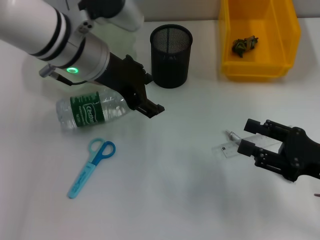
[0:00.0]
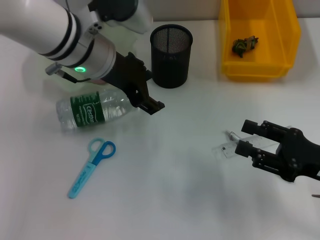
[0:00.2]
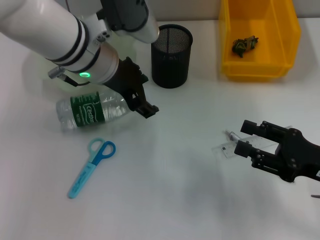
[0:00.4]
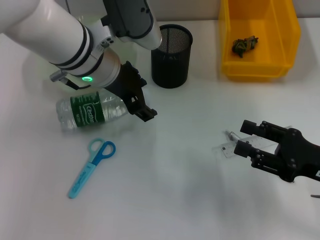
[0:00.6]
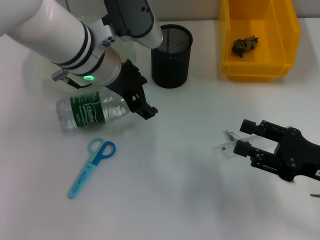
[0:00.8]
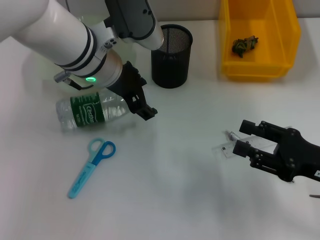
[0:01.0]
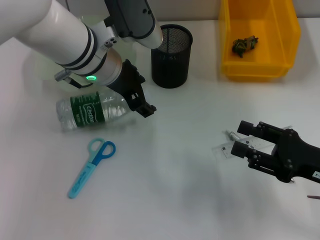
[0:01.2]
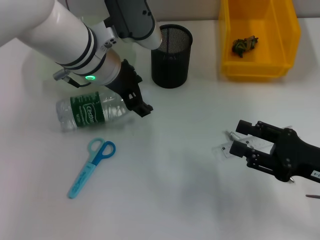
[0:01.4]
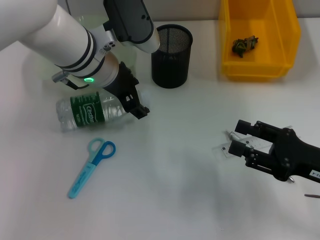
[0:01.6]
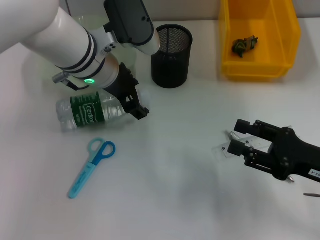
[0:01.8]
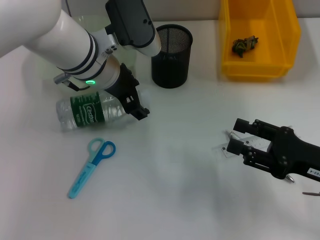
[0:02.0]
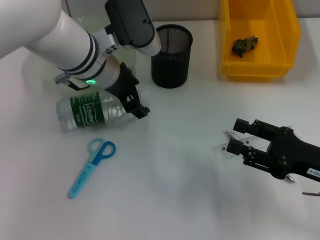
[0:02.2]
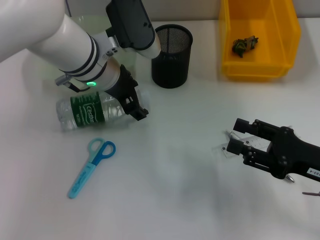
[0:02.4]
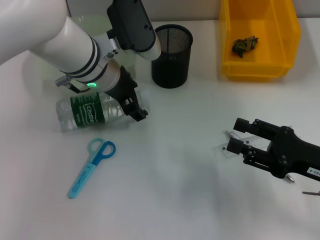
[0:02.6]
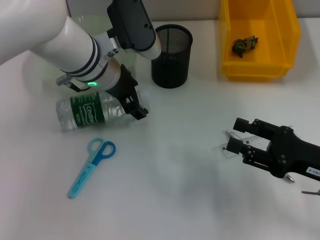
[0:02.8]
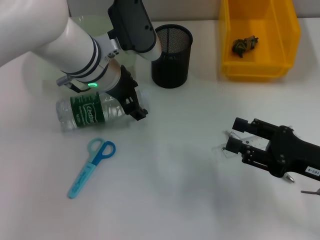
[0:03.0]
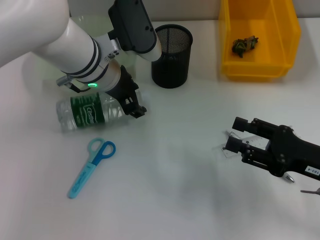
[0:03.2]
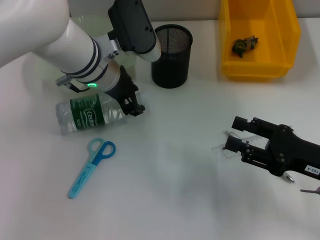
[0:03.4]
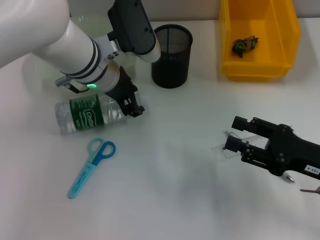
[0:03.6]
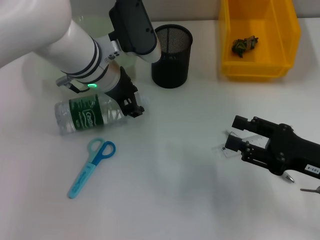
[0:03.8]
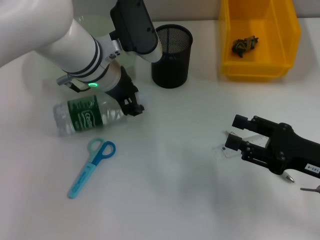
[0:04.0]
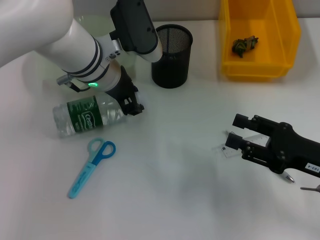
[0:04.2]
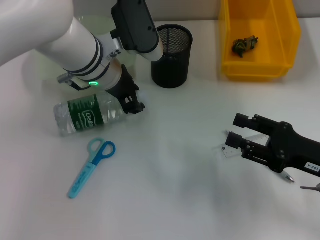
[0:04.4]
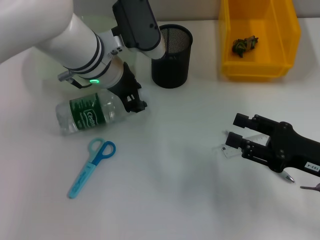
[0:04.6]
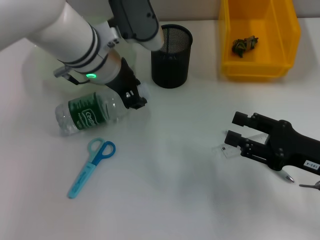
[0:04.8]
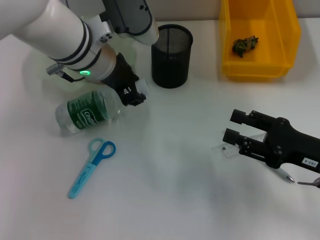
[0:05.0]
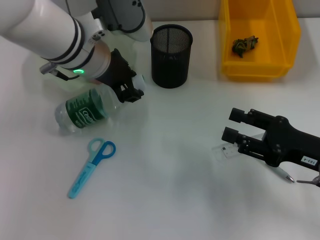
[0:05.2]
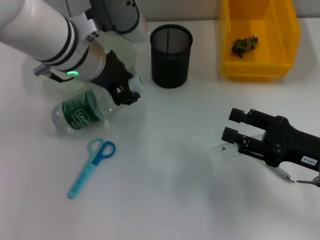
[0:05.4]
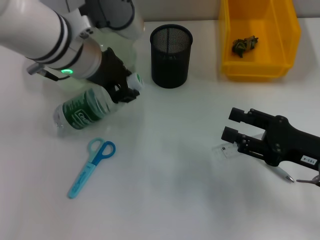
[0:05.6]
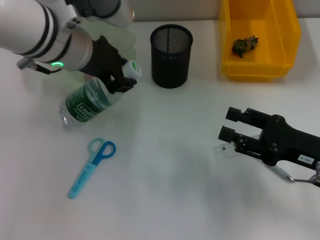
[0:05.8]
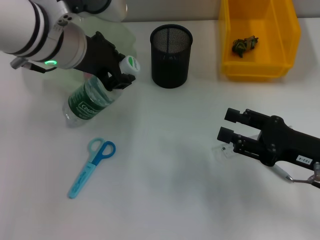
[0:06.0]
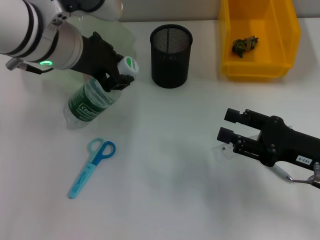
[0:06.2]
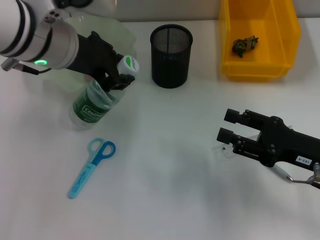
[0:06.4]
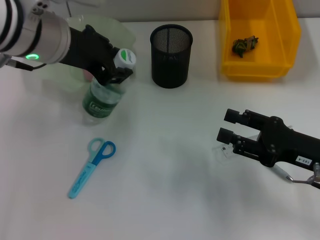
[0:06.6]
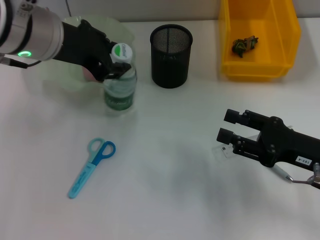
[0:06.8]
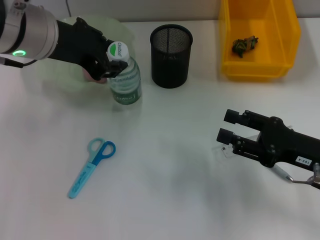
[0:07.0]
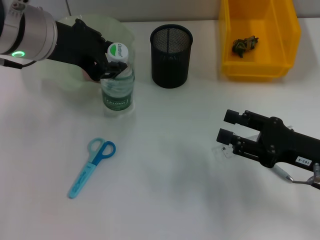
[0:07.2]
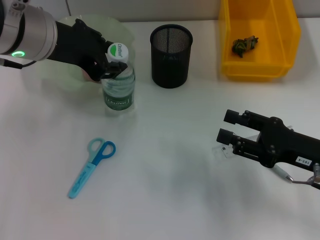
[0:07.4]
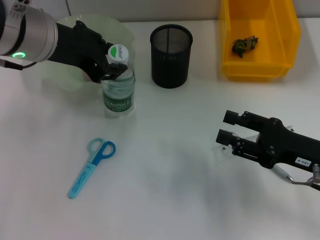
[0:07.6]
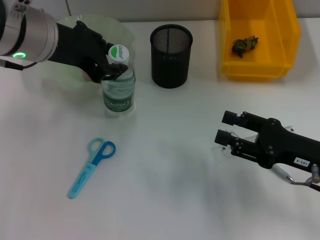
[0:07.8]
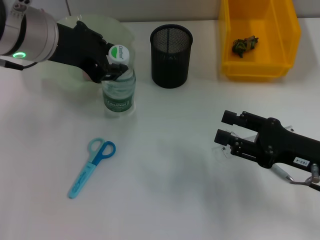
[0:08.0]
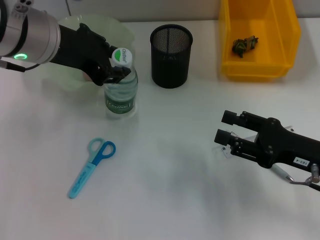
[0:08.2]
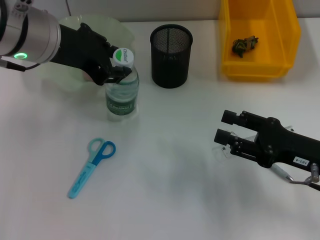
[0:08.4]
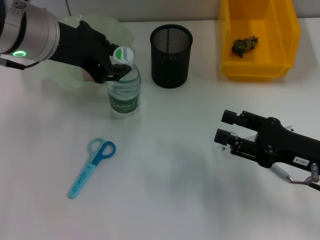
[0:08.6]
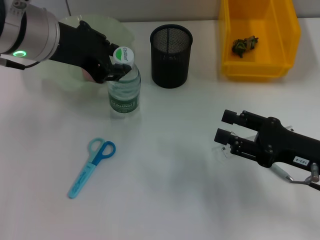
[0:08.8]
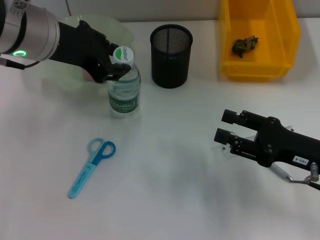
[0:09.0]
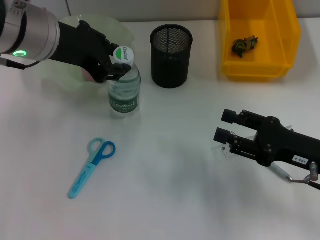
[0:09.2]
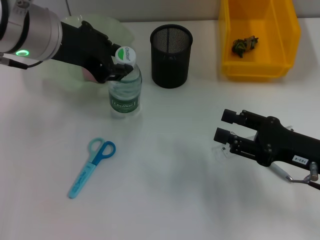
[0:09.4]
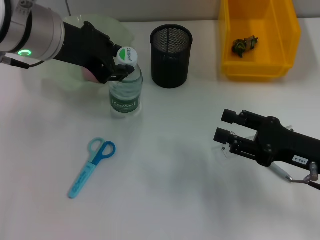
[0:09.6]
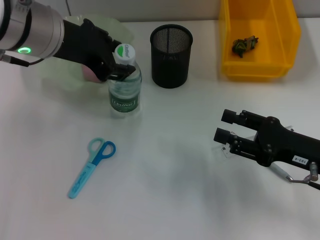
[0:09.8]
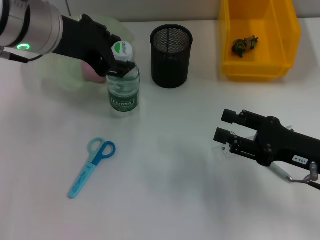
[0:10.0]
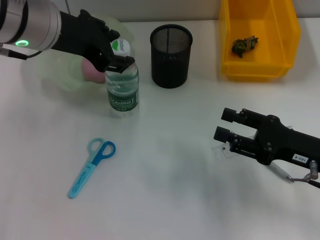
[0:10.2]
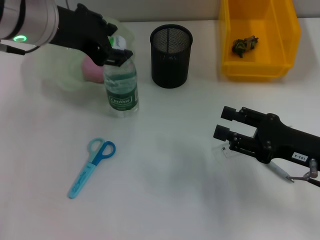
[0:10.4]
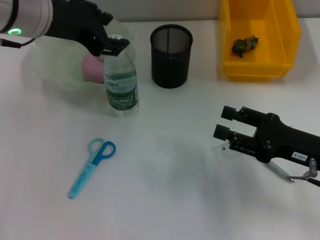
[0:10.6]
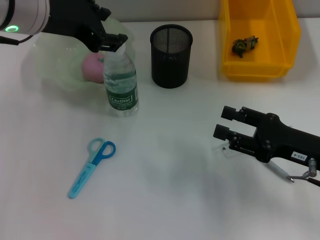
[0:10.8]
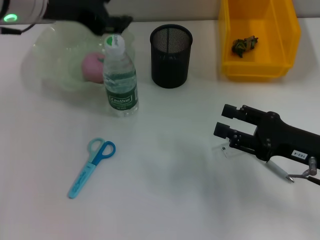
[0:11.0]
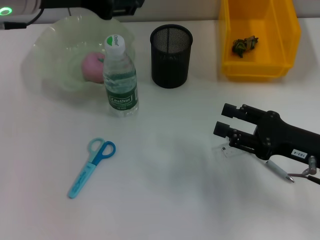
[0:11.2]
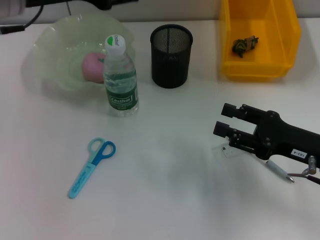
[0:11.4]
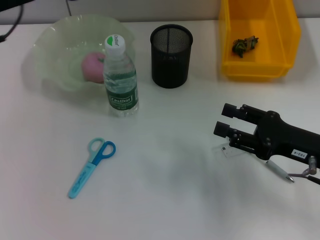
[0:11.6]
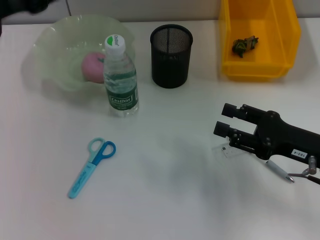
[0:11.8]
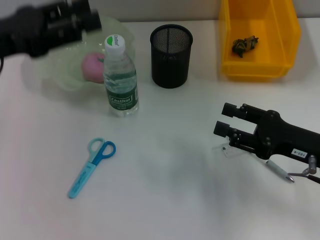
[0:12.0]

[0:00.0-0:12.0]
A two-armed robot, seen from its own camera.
Step, 0:00.0 to 0:03.8: Grab the water bottle with the left hand.
Step, 0:04.0 to 0:10.6: Place the water bottle on the table with the left hand.
0:00.0 to 0:03.0: The grippers make only small movements.
0:03.0 to 0:04.4: The left gripper closes up.
0:04.4 to 0:06.0: The left gripper is displaced upward by some 5 cm.
0:06.0 to 0:07.6: The grippers make only small movements.
0:07.6 to 0:09.0: Both grippers stay put.
0:09.0 to 0:10.4: Both grippers stay about where they are.
0:10.4 to 0:12.0: The left gripper heads to the left, covering some 10 cm.

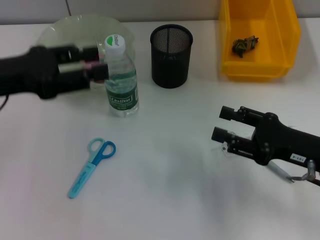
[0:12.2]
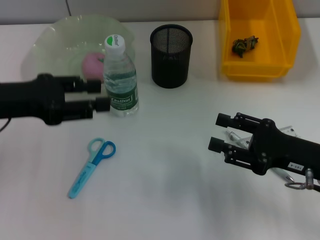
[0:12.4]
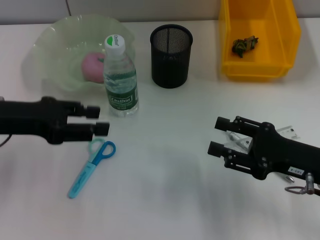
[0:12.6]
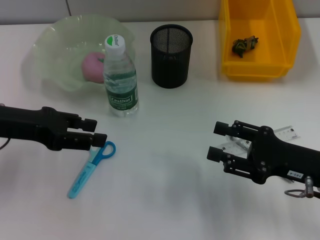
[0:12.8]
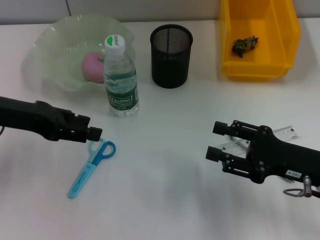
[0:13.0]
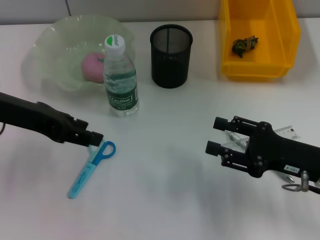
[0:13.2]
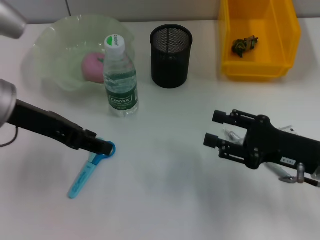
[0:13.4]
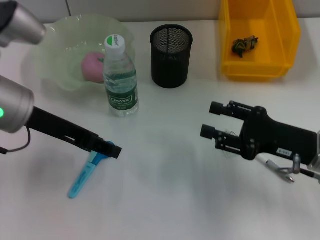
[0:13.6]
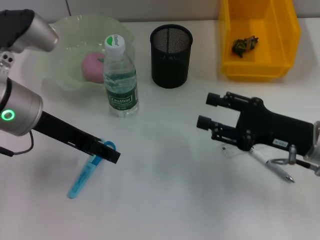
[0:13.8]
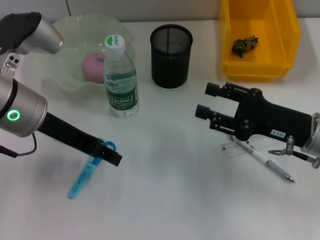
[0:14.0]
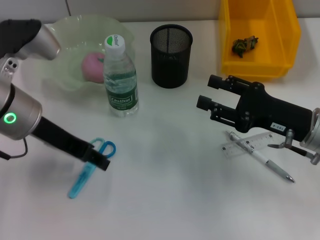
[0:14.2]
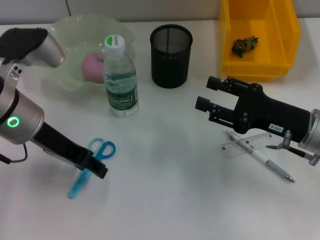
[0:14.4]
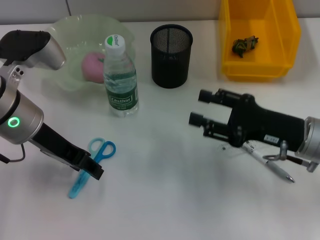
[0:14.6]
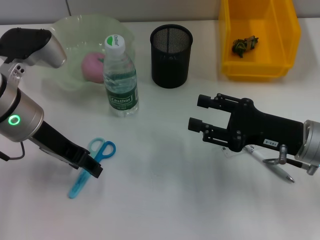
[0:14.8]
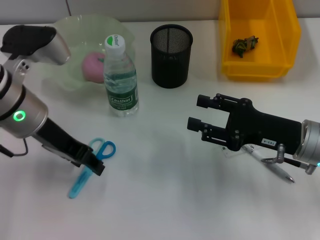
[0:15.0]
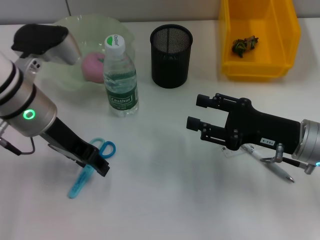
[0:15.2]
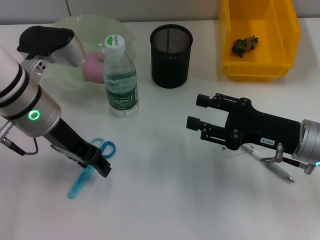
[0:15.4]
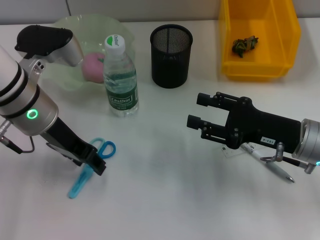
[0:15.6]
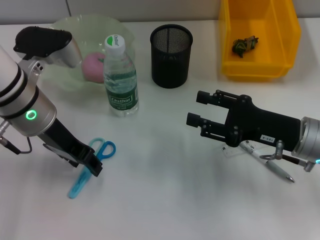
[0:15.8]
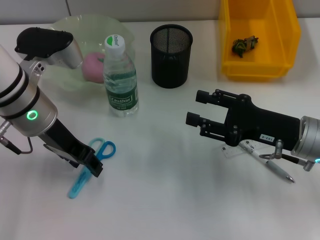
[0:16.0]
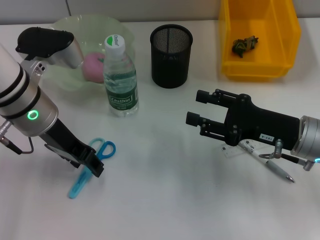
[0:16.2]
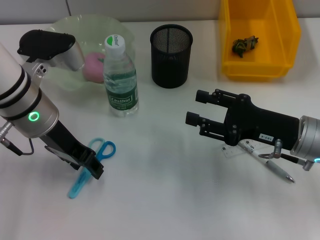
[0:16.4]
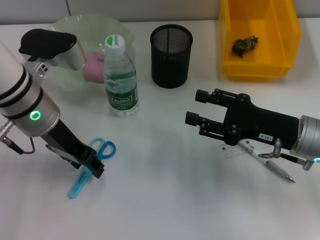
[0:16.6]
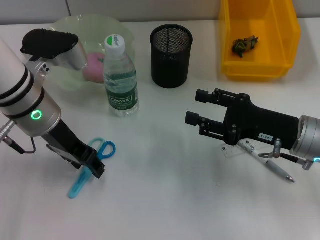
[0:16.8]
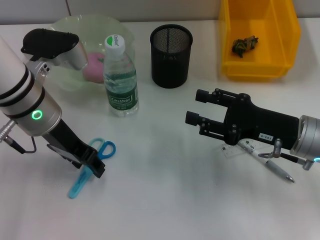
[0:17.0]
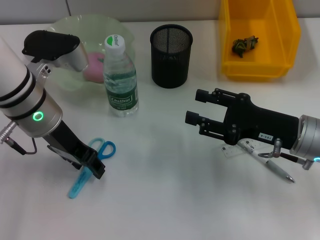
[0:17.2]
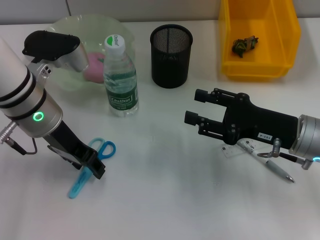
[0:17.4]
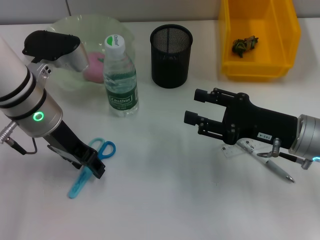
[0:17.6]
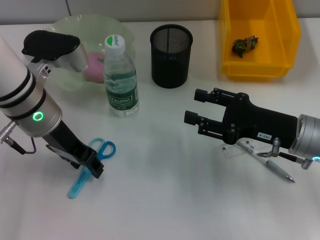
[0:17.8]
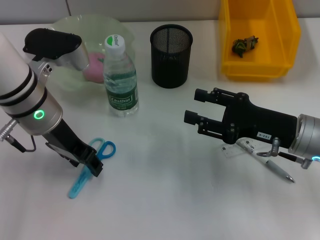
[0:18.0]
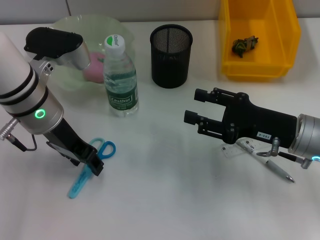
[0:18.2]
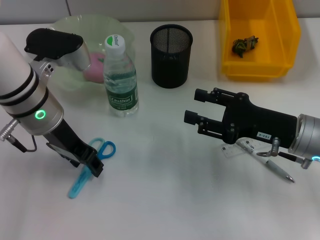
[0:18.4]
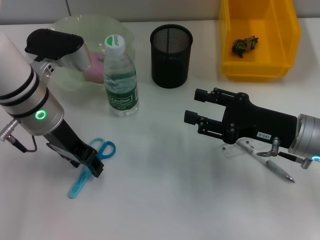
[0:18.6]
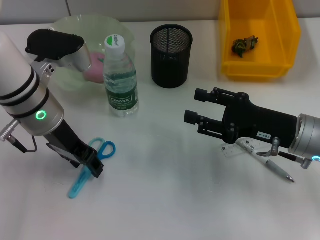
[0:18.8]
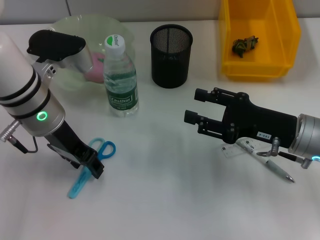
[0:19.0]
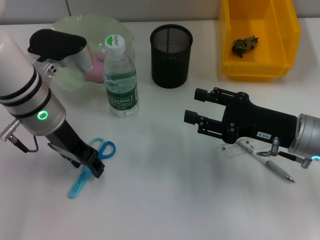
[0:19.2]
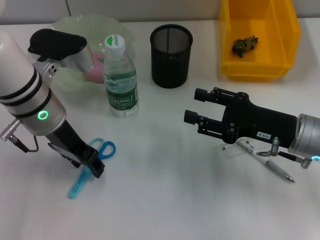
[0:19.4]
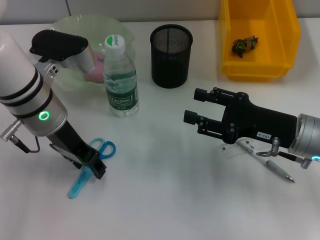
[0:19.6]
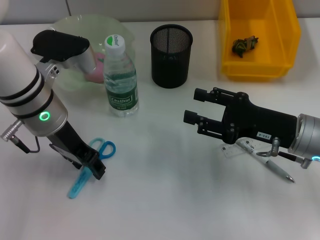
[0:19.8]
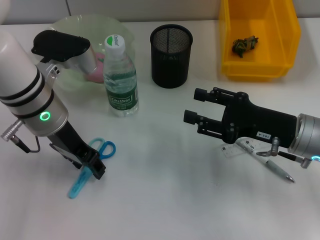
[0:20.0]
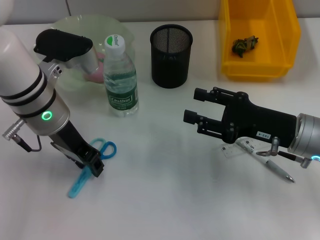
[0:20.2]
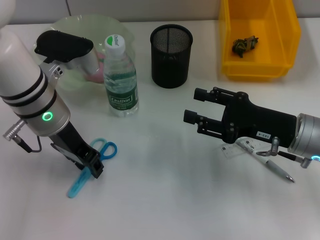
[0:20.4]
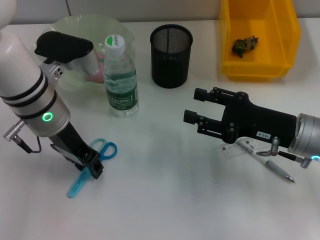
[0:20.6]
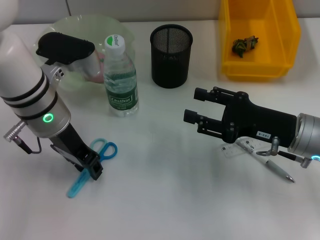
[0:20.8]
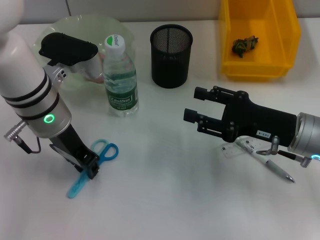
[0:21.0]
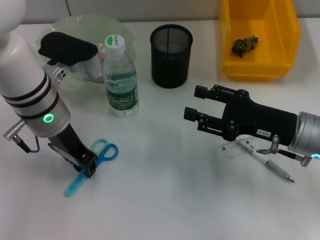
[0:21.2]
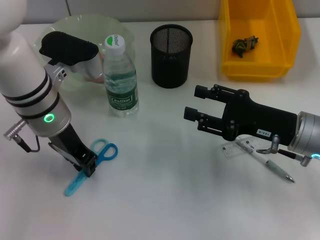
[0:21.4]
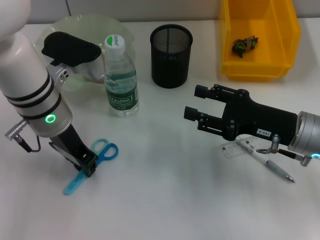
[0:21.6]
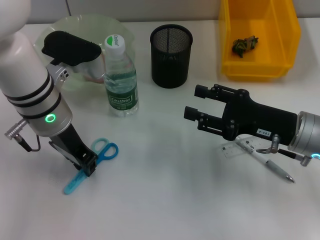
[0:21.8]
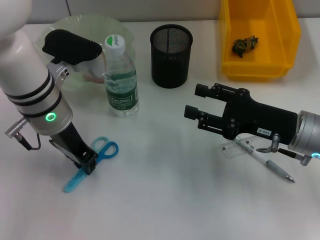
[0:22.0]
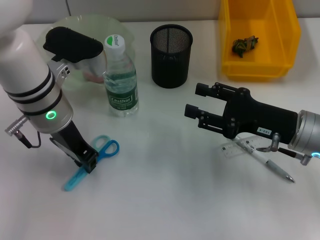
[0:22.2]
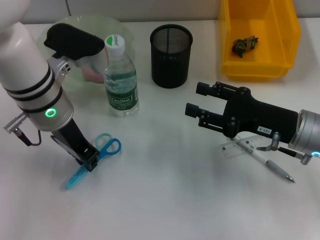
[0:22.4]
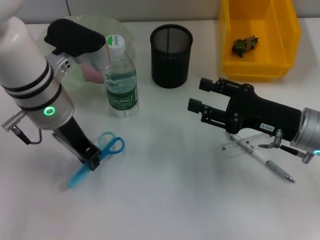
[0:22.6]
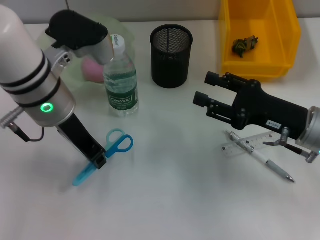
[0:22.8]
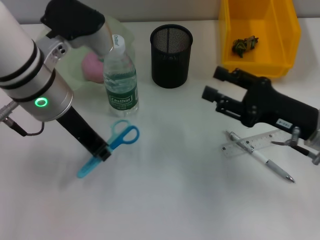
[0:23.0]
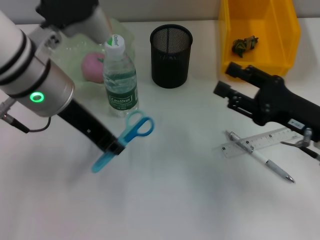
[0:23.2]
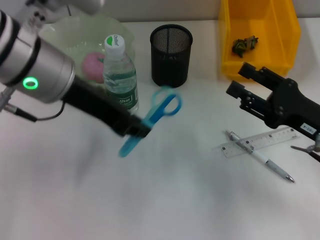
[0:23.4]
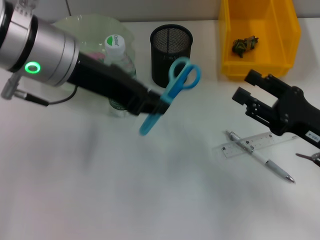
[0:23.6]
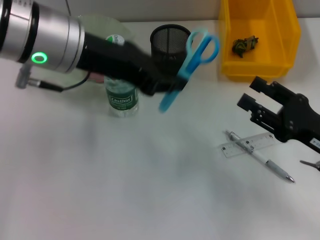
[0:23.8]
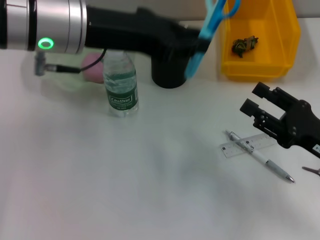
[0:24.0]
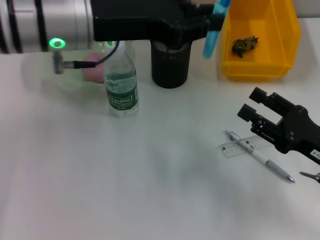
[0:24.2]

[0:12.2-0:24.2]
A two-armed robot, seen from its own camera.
Step, 0:12.2 to 0:21.8: Grab the blue scissors with the left hand.
0:12.2 to 0:13.8: The left gripper moves to the right, approximately 10 cm.
0:13.8 to 0:15.2: There are only small adjustments of the grippers.
0:15.2 to 0:16.6: The two grippers keep their place.
0:16.6 to 0:19.8: Both grippers stay put.
0:19.8 to 0:21.2: The left gripper closes its fingers.
0:21.2 to 0:22.6: The grippers stay close to where they were, moving slightly.
0:22.6 to 0:24.2: The left gripper heads upward, covering some 5 cm, while the right gripper heads backward, covering some 5 cm.
